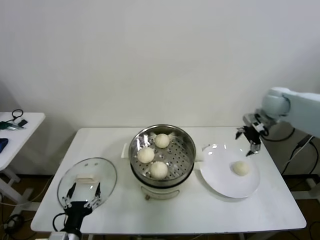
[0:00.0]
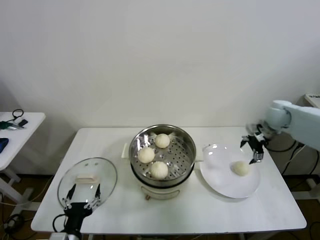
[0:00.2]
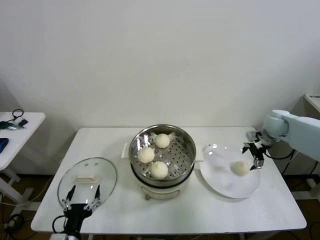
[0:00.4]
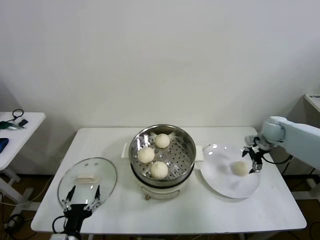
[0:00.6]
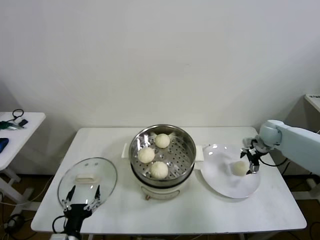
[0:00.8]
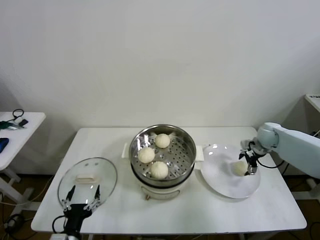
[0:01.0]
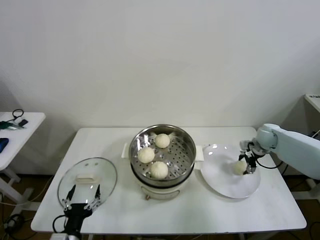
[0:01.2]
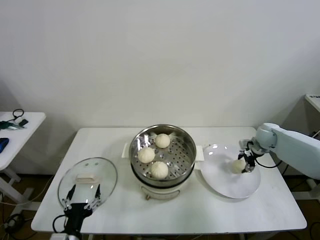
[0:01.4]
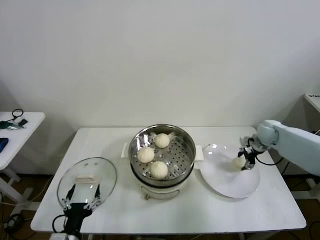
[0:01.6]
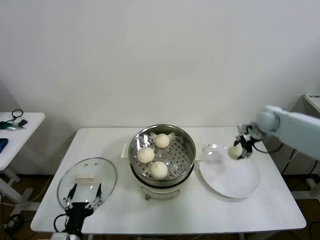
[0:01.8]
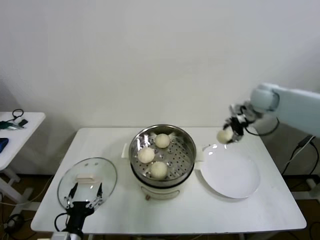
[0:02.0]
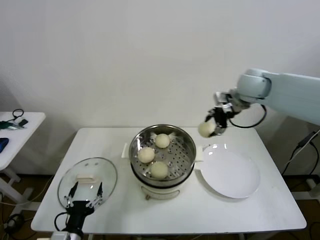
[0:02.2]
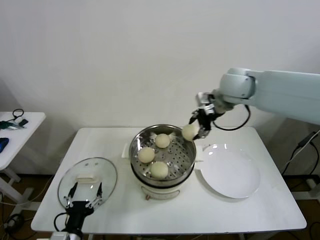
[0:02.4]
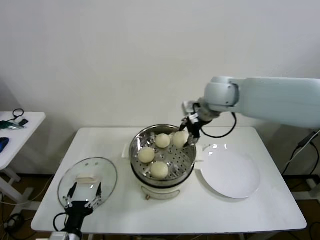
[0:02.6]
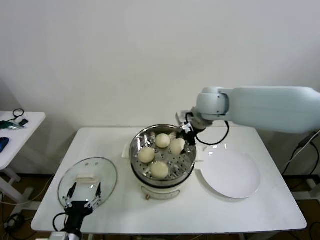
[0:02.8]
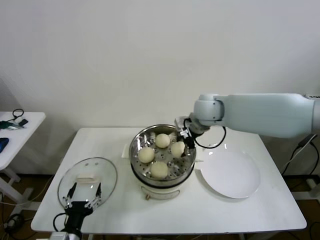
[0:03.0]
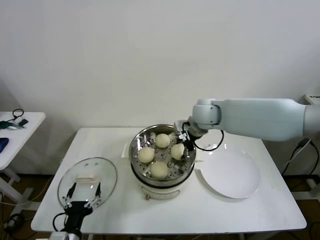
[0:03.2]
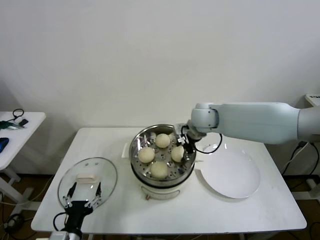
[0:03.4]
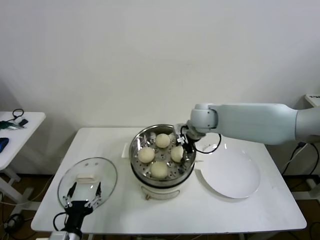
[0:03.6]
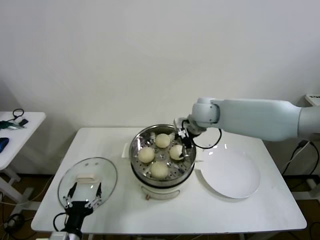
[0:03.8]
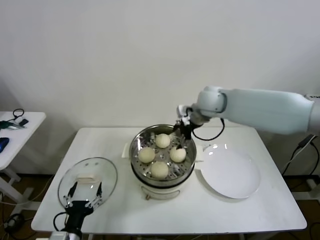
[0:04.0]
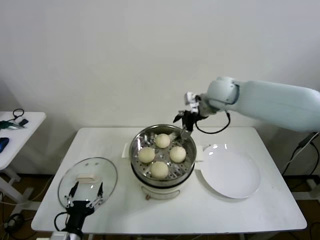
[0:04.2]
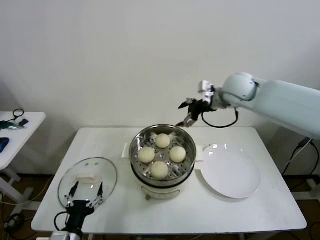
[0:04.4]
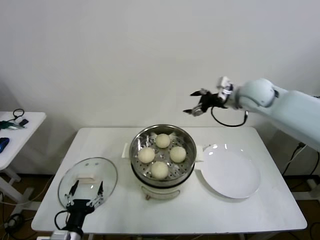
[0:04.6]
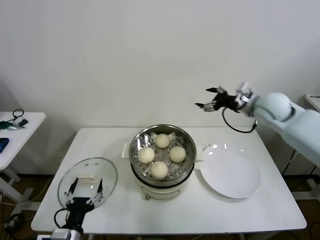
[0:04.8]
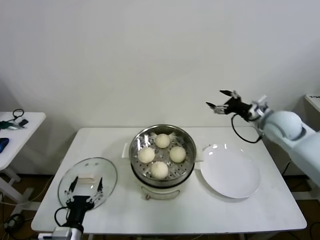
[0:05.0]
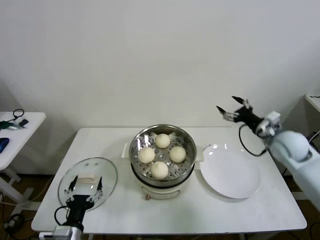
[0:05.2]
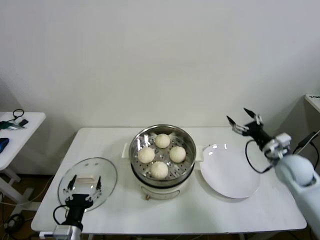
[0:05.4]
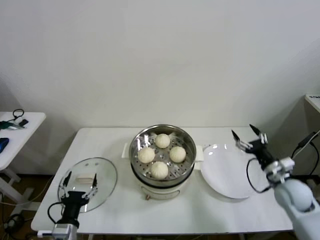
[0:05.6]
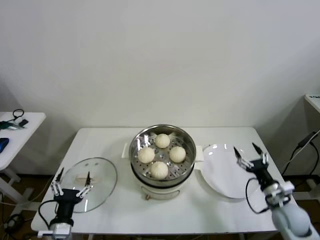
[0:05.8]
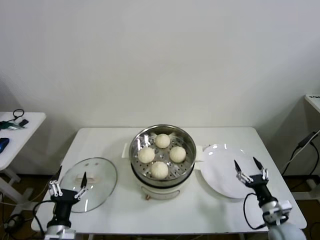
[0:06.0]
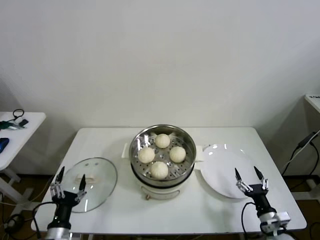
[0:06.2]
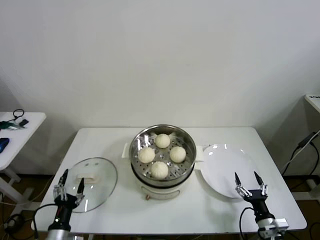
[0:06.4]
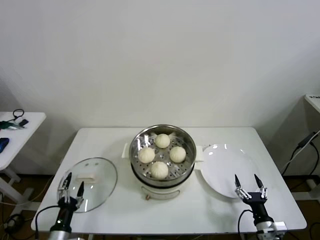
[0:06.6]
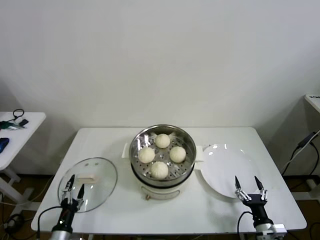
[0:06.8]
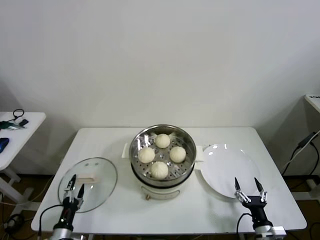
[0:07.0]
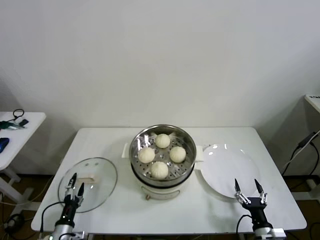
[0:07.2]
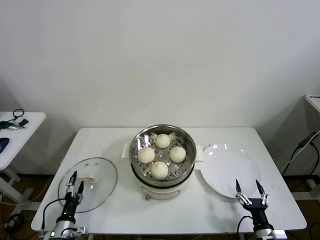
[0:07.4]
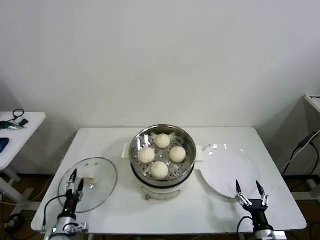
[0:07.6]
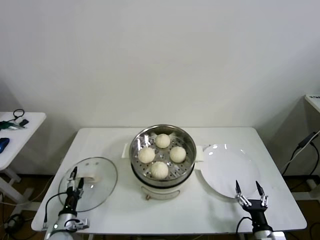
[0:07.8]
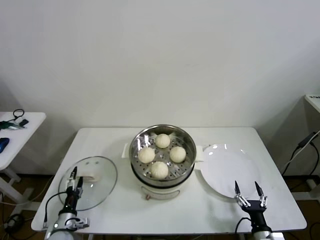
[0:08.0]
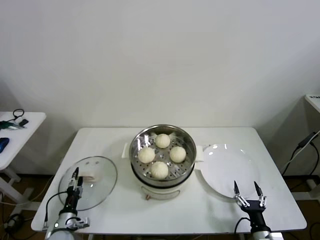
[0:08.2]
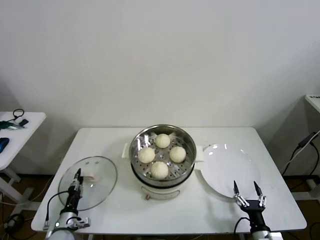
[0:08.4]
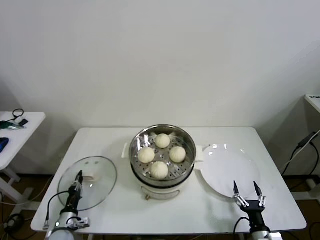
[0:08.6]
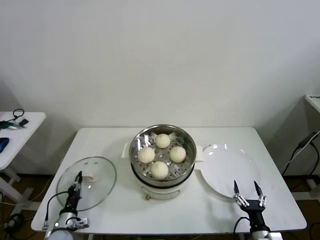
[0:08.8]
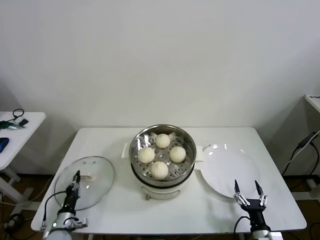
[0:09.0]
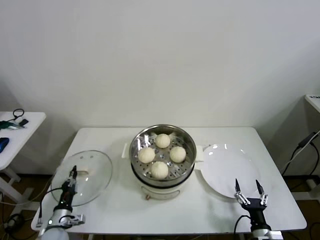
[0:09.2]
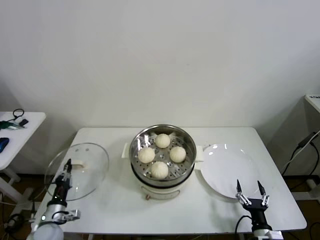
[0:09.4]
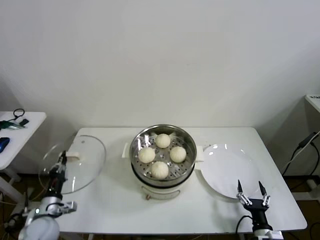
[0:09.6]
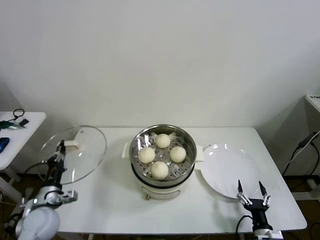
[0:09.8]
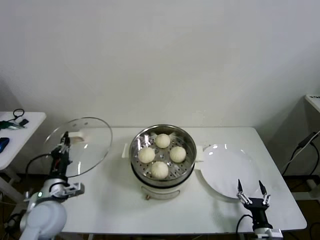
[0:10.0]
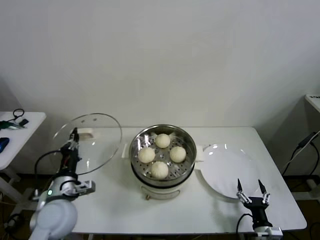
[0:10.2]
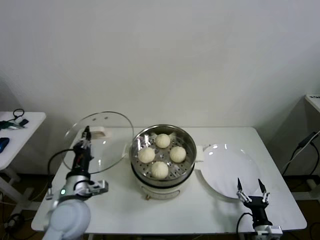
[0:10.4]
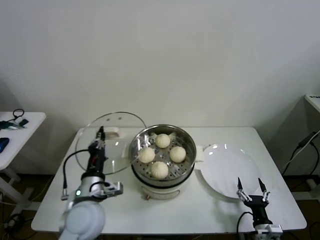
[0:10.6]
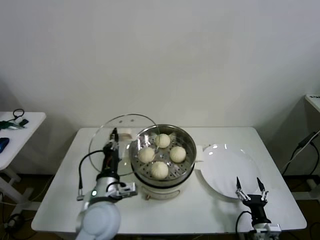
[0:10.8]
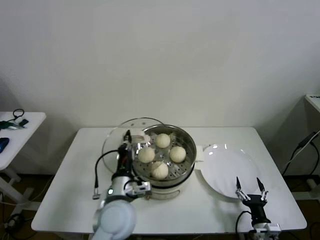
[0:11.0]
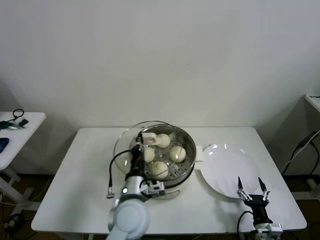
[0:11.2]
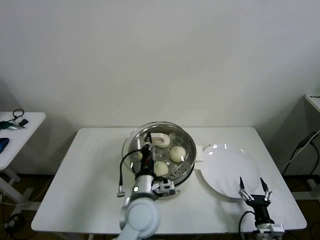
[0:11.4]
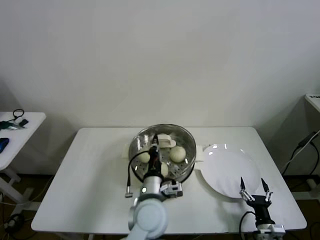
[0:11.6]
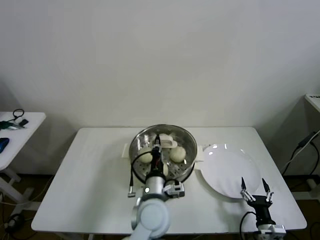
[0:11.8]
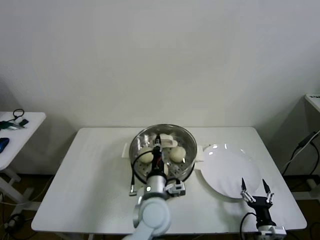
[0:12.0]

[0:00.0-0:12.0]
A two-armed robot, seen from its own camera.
Task of the whole recording: take steamed baozi put them in steamer then cover it.
Step, 0:00.0 to 0:01.4: Grasp the baozi in the plate with right gripper.
Step, 0:01.6 to 0:03.6: Place the baozi on the steamer with right gripper.
Step, 0:03.8 to 0:08.8: Grasp the pot lid with left gripper.
0:00.0 to 0:01.6: The right gripper moves downward, some 15 cm, and closes its fingers.
0:01.6 to 0:03.0: The right gripper shifts roughly 30 cm to the left and upward.
0:03.0 to 0:04.4: The right gripper shifts some 10 cm to the right and upward, and opens its fingers.
0:04.4 to 0:06.0: The right gripper is displaced downward, backward and to the right by about 50 cm.
0:06.0 to 0:07.6: The right gripper travels backward and downward by roughly 10 cm. Meanwhile the left gripper heads downward, to the left and forward, covering roughly 15 cm.
0:07.6 to 0:09.0: The left gripper closes its fingers.
0:09.0 to 0:10.4: The left gripper is displaced upward and to the right by about 30 cm.
0:10.4 to 0:12.0: The left gripper goes some 25 cm to the right.

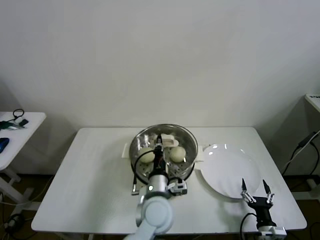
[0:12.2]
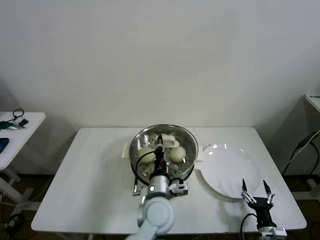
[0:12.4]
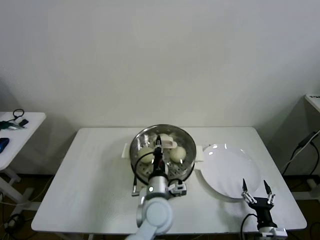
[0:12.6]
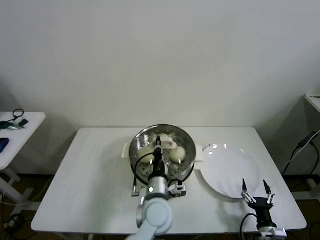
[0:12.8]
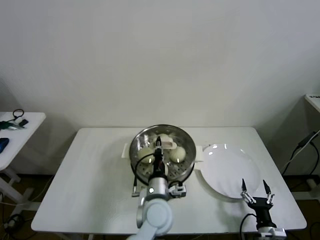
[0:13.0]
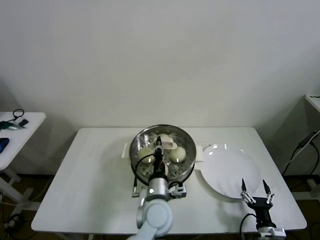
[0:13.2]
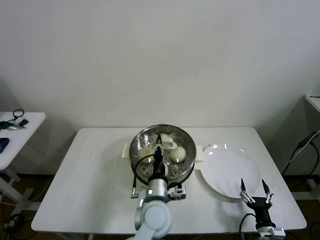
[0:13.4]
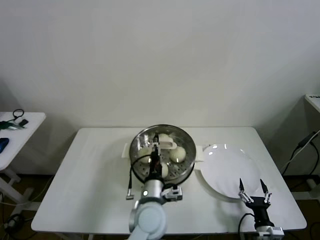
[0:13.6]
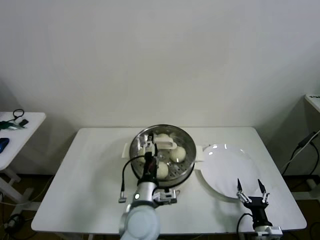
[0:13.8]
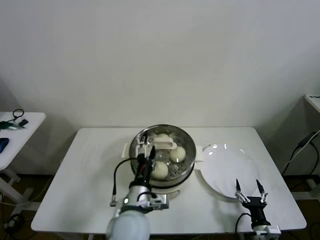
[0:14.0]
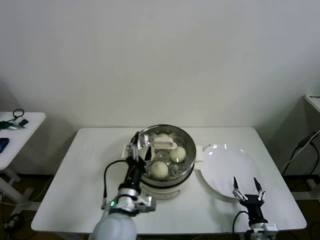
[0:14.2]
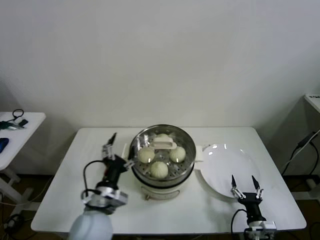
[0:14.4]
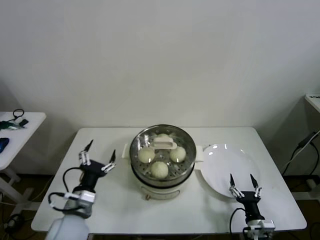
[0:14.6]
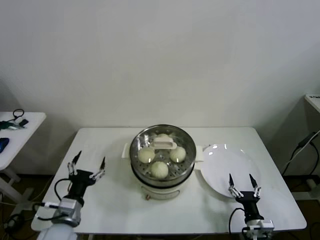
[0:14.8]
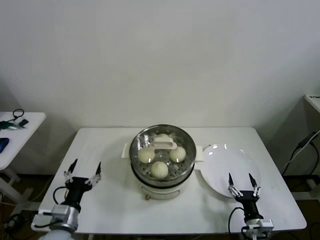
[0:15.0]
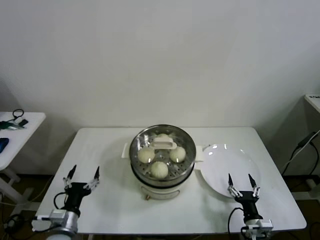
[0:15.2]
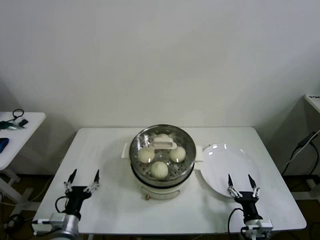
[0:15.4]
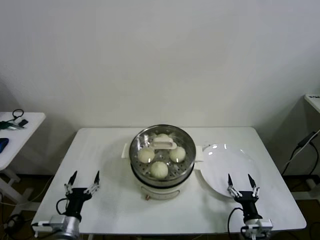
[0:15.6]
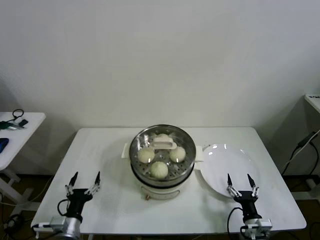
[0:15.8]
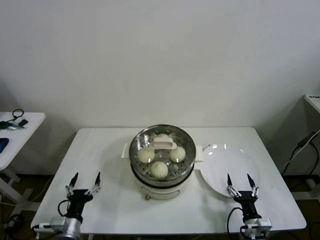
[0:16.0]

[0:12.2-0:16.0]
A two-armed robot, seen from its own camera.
Task of the whole recording: take steamed baozi put them in steamer then cover it.
0:12.2 to 0:13.4: The grippers make only small movements.
0:13.4 to 0:14.8: The left gripper travels to the left by some 25 cm, and opens up.
0:14.8 to 0:16.0: The left gripper travels downward by some 10 cm.
